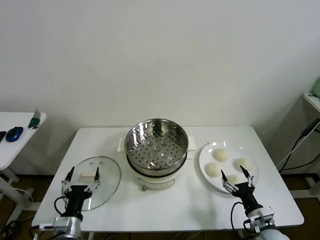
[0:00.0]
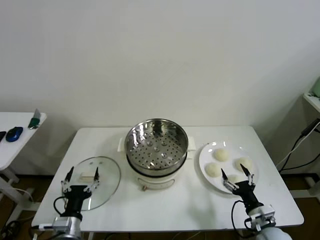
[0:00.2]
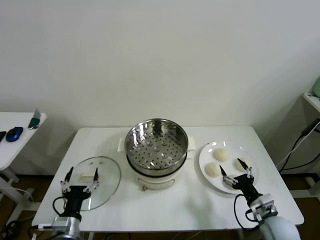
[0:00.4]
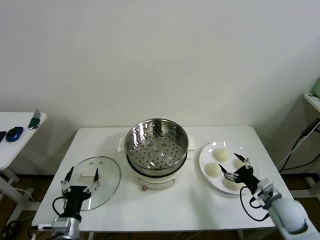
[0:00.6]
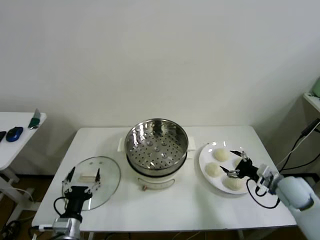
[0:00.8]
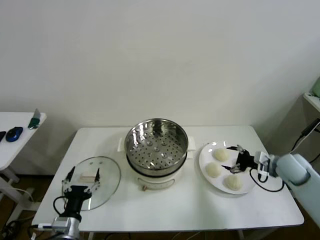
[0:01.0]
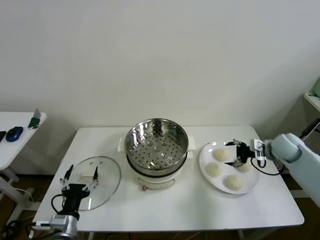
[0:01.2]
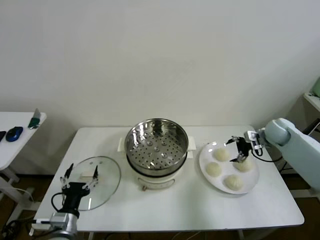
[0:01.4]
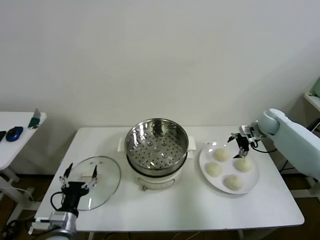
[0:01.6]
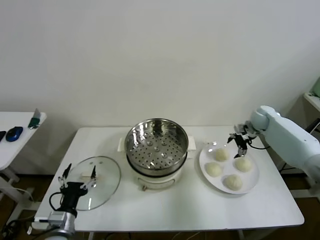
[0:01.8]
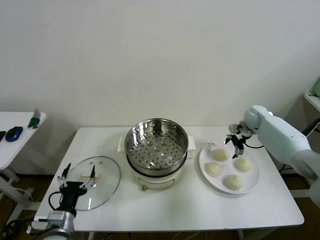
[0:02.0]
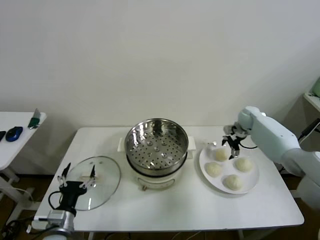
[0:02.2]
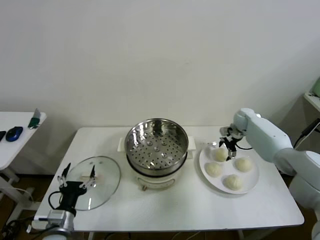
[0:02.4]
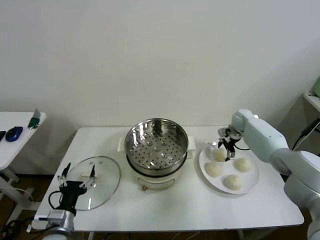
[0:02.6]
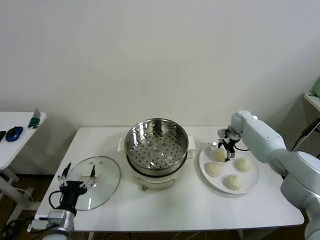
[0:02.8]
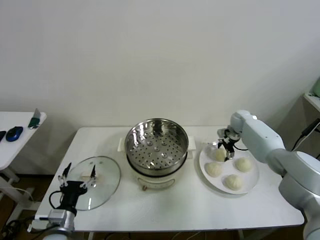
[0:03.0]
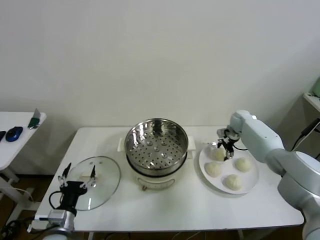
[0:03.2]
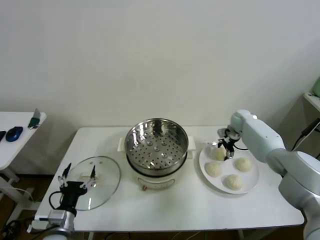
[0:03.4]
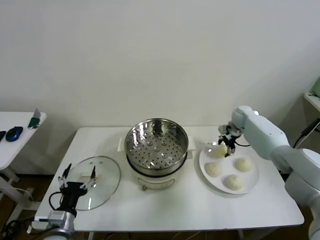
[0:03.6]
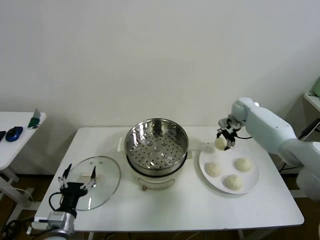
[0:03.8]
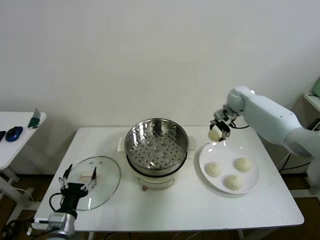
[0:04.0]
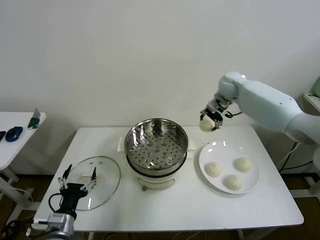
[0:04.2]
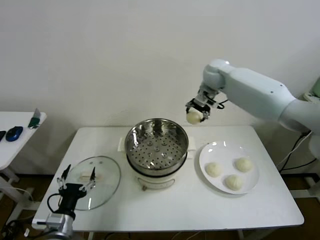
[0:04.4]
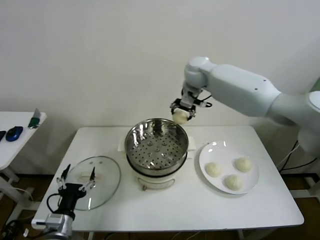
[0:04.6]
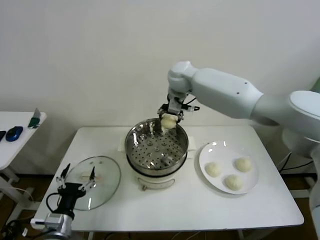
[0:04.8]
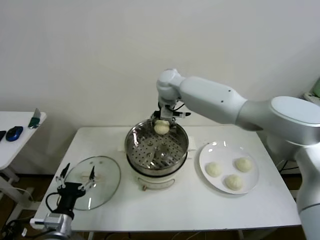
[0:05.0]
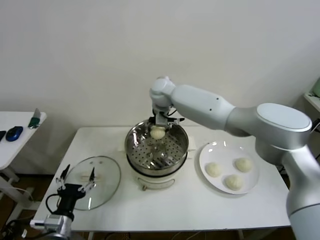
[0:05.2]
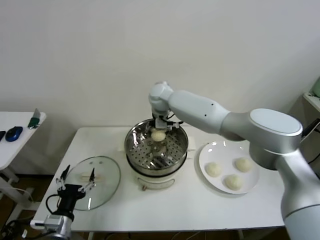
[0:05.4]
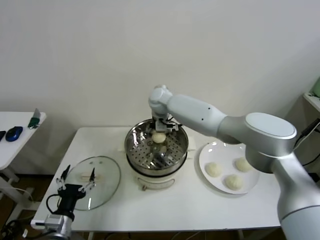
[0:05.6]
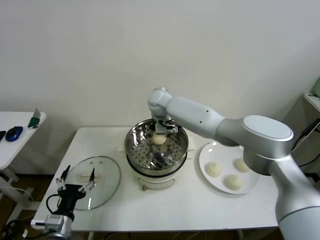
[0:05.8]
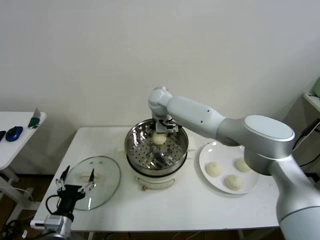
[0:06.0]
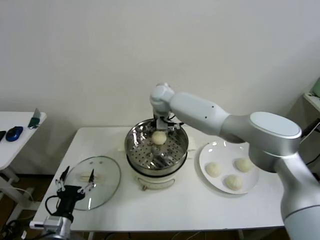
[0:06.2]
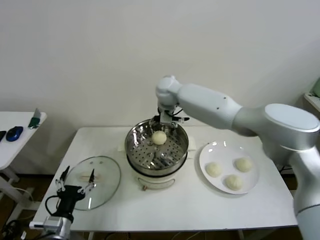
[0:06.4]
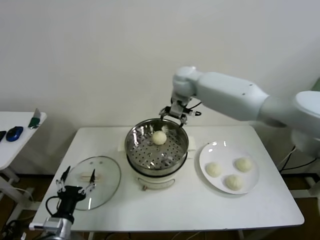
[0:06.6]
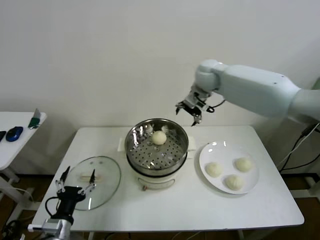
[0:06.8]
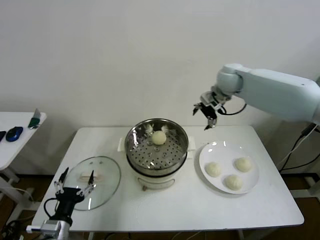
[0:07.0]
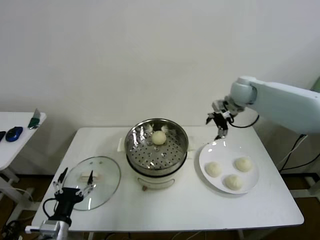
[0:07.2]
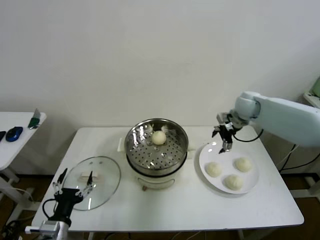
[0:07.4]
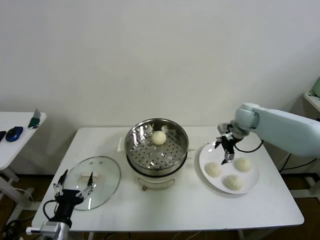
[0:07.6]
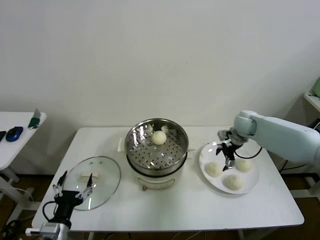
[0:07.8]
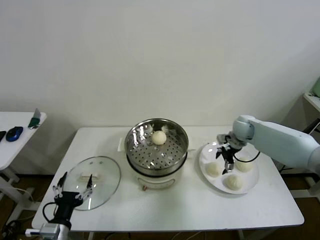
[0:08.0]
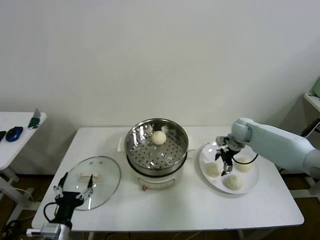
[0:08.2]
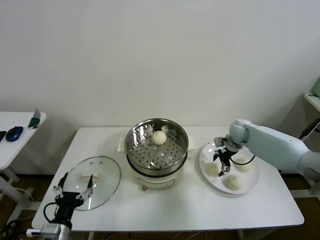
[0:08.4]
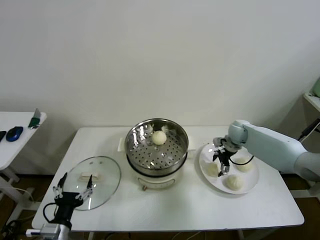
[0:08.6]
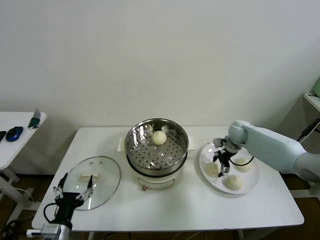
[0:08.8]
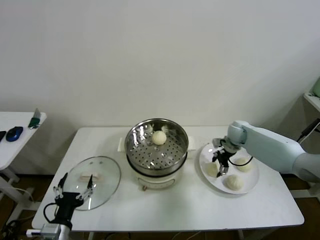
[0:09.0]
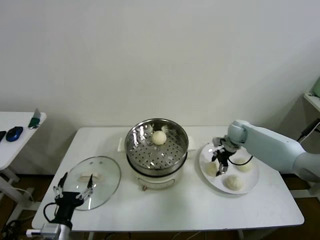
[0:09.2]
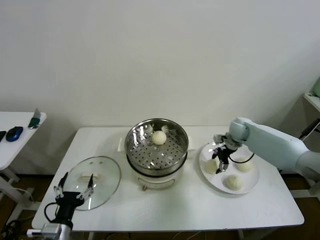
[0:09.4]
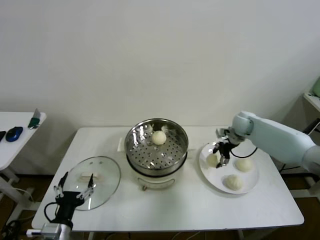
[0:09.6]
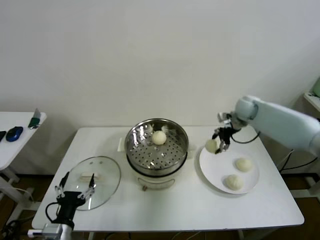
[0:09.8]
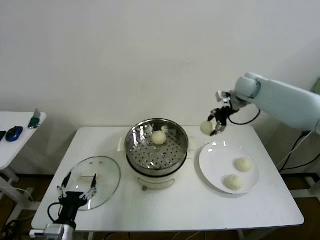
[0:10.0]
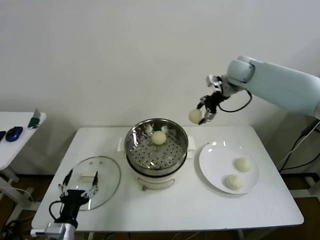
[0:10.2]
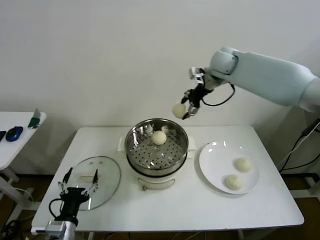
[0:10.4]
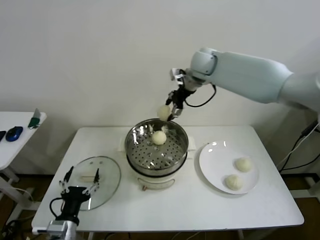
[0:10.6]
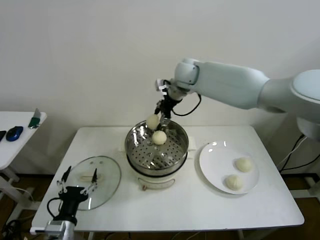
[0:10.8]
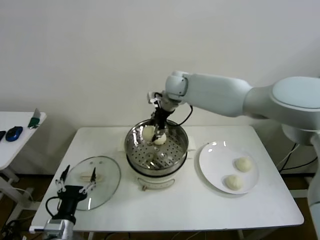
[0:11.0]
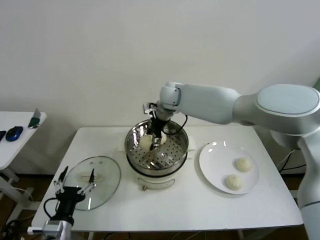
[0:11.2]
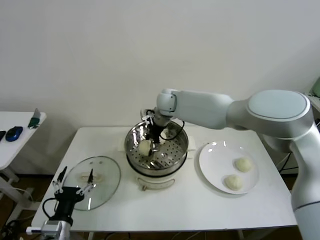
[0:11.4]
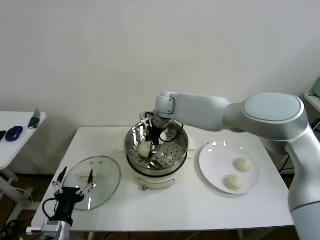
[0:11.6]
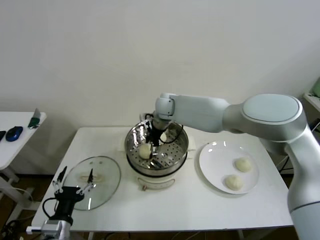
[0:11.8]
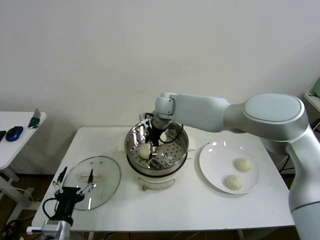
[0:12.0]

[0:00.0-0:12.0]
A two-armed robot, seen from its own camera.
Step, 0.0 to 3.2 s: Grasp the baozi in the plate with right gripper.
Step, 3.4 to 6.0 s: Place the baozi on the steamer with right gripper.
Step, 6.2 to 8.8 s: Grasp the baozi in the plate with right gripper.
1.6 to 3.0 s: The right gripper goes some 10 cm to the left and downward, and closes up.
3.0 to 4.4 s: The right gripper travels upward and to the left by roughly 30 cm.
4.4 to 6.0 s: The right gripper is displaced to the left and downward by about 20 cm, and opens.
6.0 to 7.6 s: The right gripper goes approximately 35 cm to the right.
7.6 to 9.0 s: The right gripper goes about 10 cm downward, and closes up.
9.0 to 10.4 s: The right gripper moves upward and to the left, some 30 cm.
10.4 to 12.0 s: The right gripper heads to the left and downward, covering roughly 20 cm, and opens its fingers.

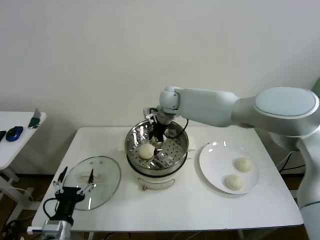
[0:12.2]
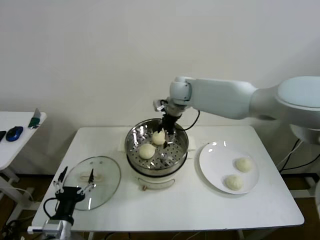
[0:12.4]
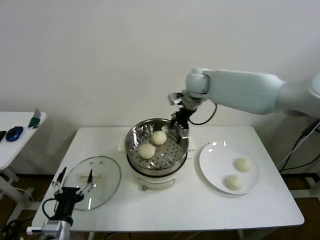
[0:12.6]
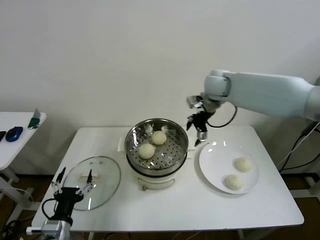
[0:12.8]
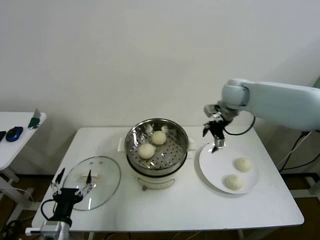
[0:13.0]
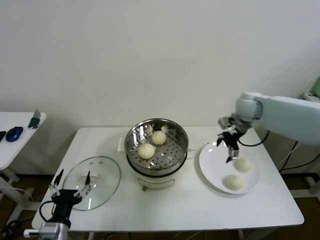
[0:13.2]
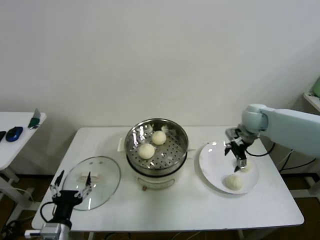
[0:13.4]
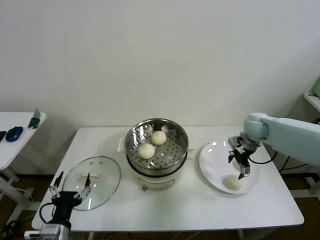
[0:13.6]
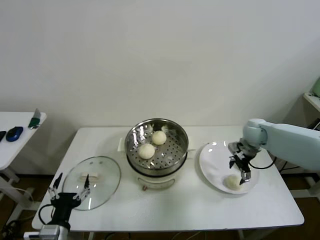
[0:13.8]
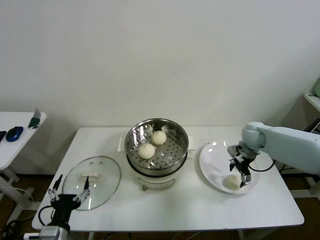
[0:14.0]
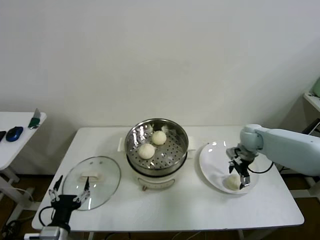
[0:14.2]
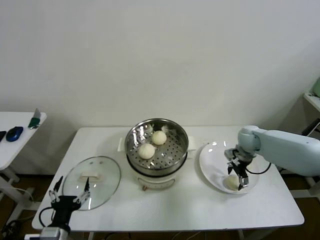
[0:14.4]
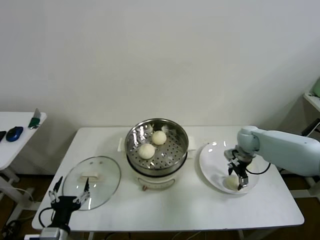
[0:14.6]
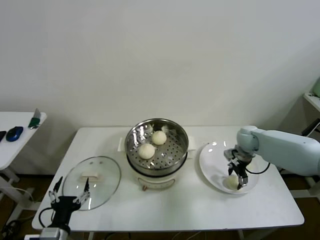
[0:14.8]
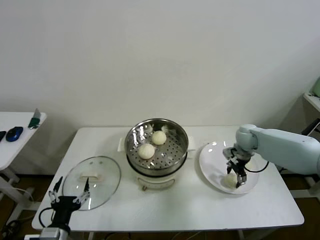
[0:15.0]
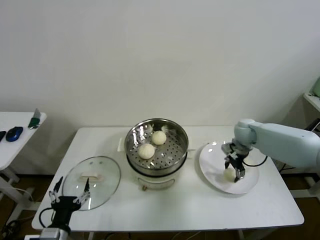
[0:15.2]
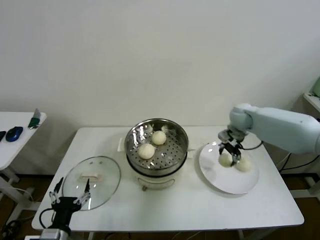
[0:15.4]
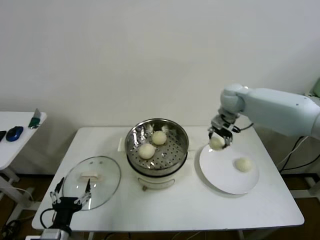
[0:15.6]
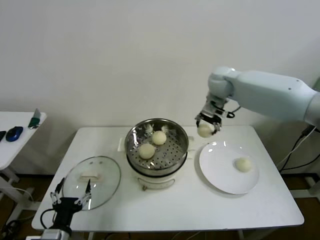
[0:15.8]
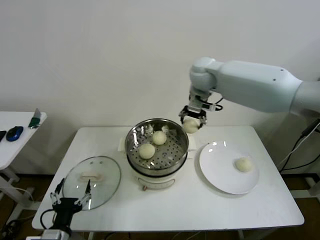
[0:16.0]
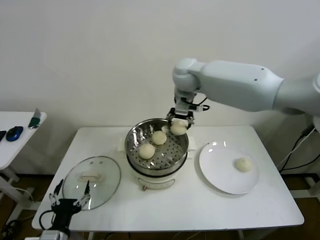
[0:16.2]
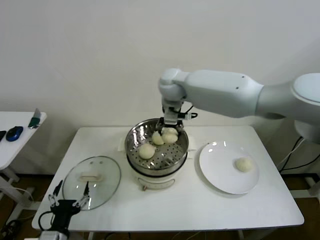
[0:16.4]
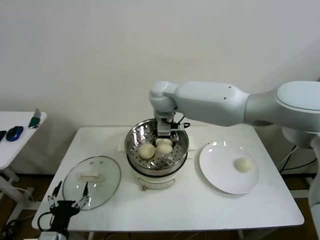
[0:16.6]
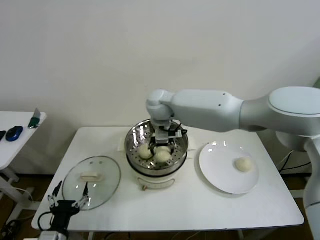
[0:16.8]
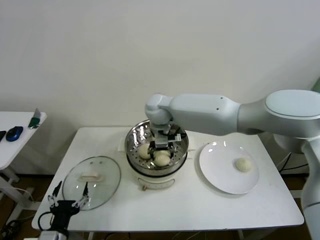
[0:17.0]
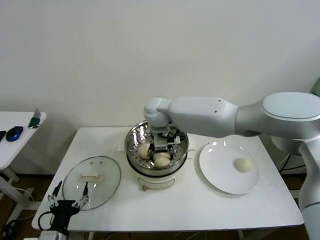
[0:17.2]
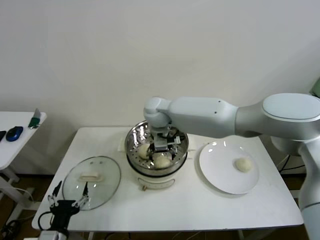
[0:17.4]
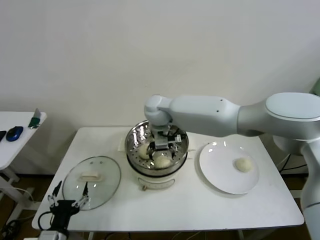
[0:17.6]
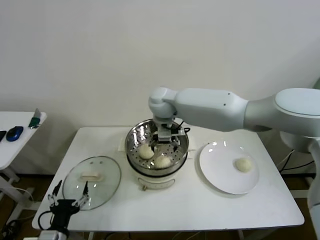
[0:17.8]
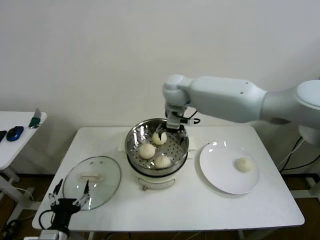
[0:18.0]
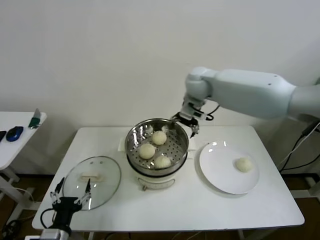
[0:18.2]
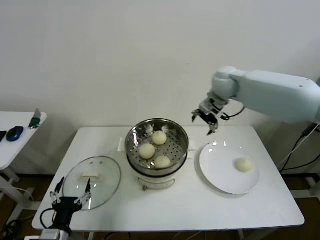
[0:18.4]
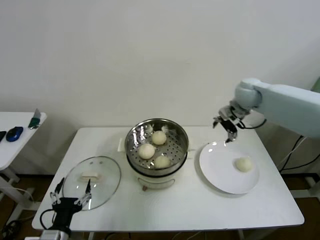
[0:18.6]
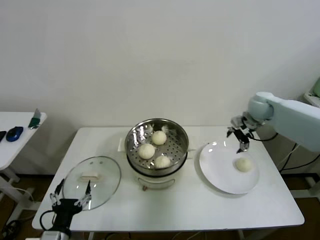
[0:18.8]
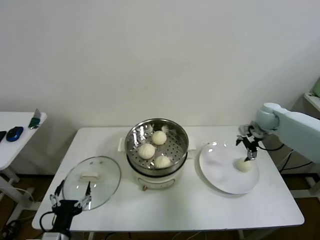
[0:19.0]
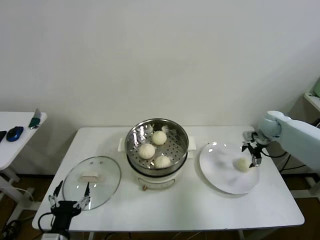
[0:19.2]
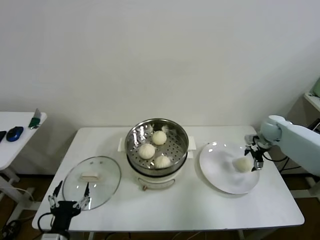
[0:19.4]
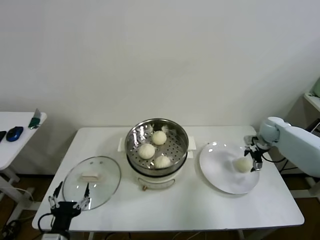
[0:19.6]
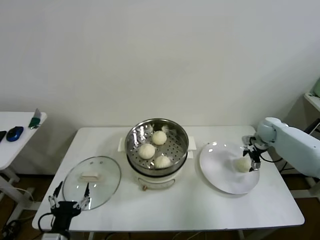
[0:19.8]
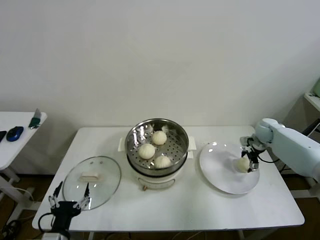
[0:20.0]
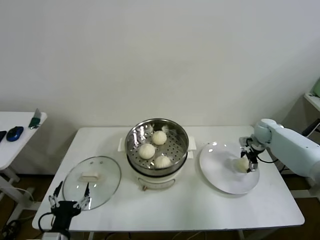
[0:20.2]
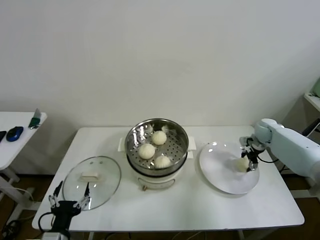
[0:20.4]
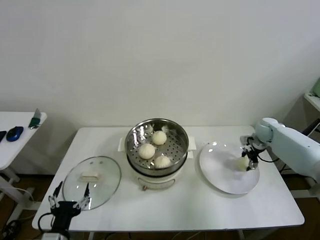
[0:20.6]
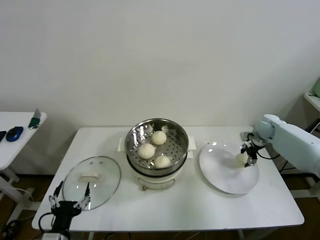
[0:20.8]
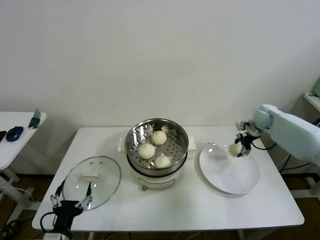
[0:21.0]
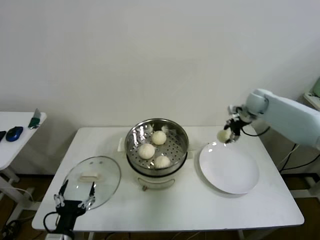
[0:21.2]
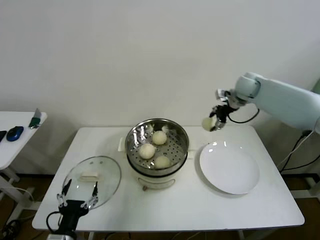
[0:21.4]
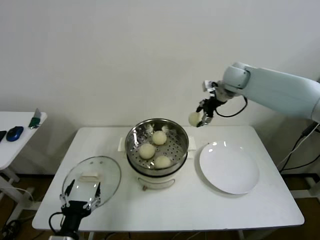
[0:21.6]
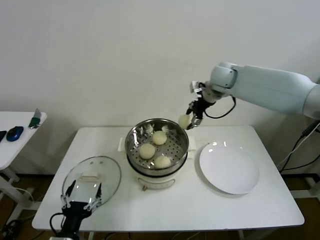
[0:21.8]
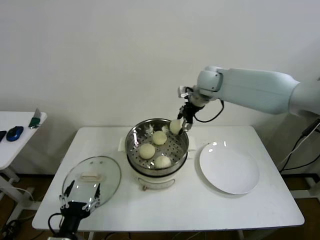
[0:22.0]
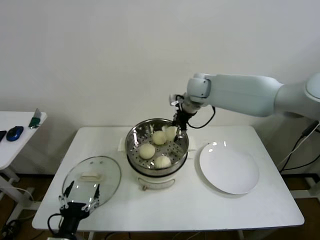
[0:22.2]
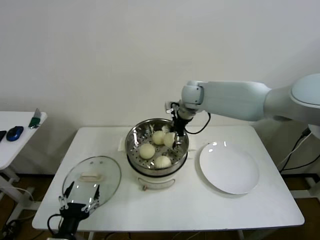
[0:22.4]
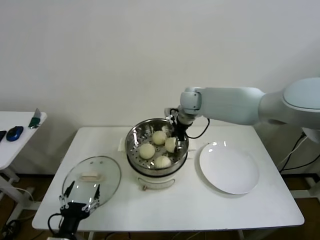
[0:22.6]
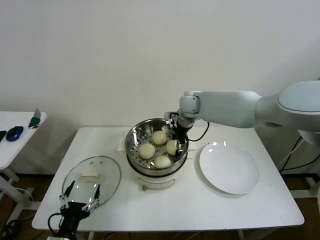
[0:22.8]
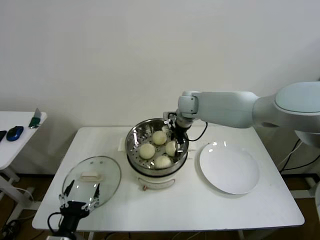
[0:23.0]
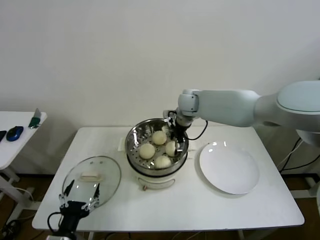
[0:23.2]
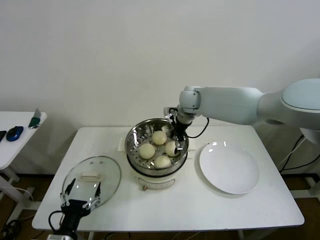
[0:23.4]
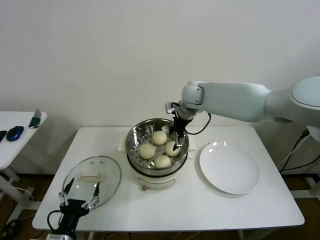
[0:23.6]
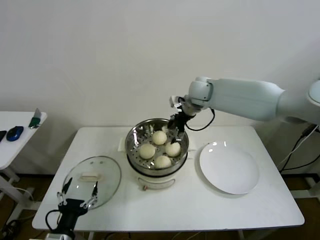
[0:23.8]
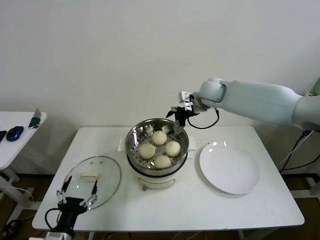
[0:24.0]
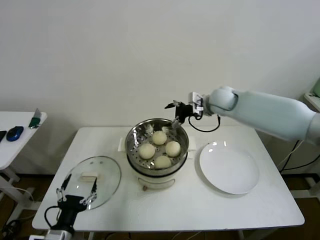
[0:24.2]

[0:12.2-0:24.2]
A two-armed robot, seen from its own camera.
Step, 12.2 to 14.6 s: Grasp the baozi in the plate with right gripper.
Step, 14.8 to 17.2 s: Place the baozi on the steamer with right gripper.
Step, 17.4 to 20.4 s: Grasp the baozi in the plate with right gripper.
Step, 20.6 to 22.8 s: Place the baozi on the steamer with right gripper.
12.2 to 13.8 s: The right gripper shifts approximately 30 cm to the right and downward.
13.8 to 15.2 s: The right gripper closes.
15.2 to 16.6 s: The right gripper shifts some 35 cm to the left and upward.
16.6 to 18.2 s: The right gripper goes some 15 cm to the right, and opens.
18.2 to 19.8 s: The right gripper moves to the right and downward, about 35 cm.
19.8 to 21.2 s: The right gripper travels upward and to the left by about 15 cm, and closes up.
21.2 to 22.6 s: The right gripper travels to the left by approximately 25 cm.
22.6 to 24.2 s: The right gripper goes approximately 10 cm to the right, and opens.
